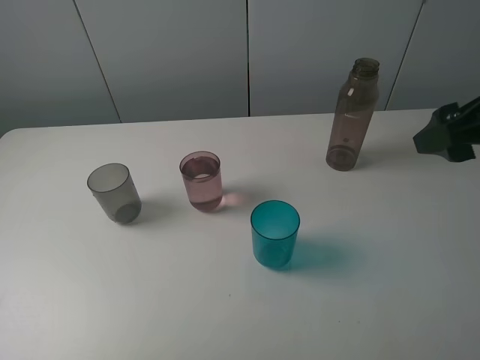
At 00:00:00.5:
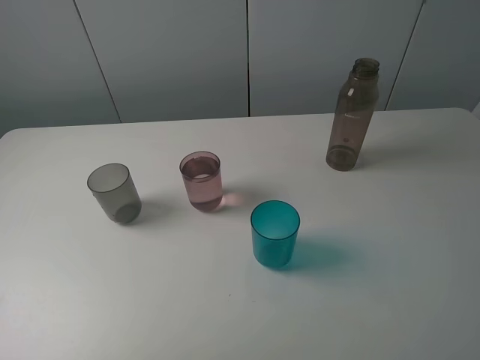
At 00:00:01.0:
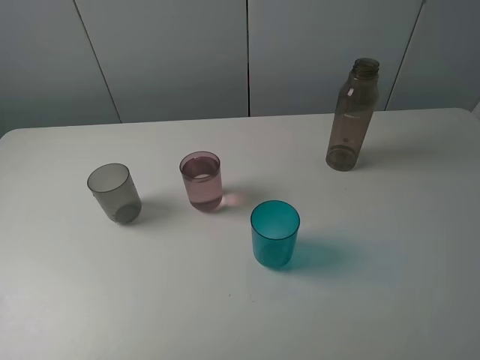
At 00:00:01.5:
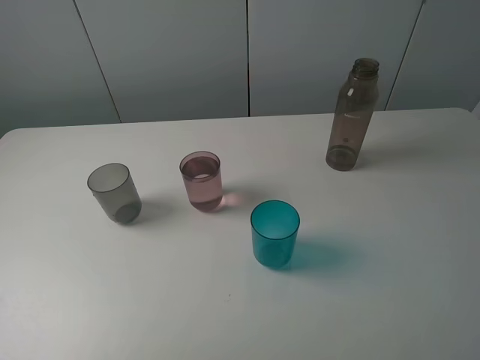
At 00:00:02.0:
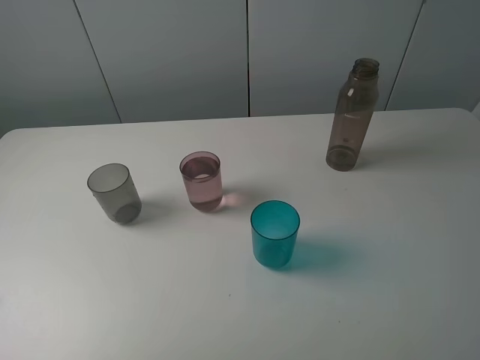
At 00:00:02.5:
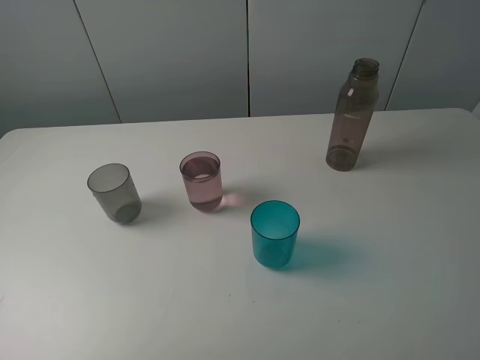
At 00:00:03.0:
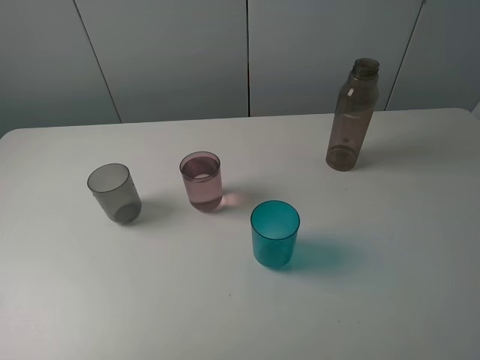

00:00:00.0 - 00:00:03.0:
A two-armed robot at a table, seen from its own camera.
Task of the whole recording: pick up the bottle filled with water and pour water into the middle cup of the three cups.
00:00:00.0 - 00:00:01.5: The right gripper goes roughly 20 cm backward.
00:00:01.5 - 00:00:03.0: Both grippers stay put.
